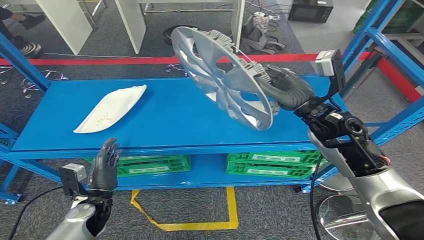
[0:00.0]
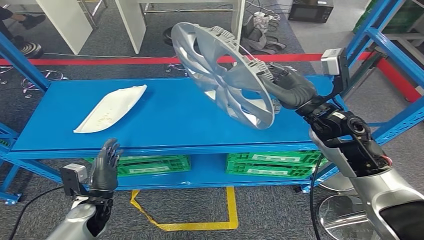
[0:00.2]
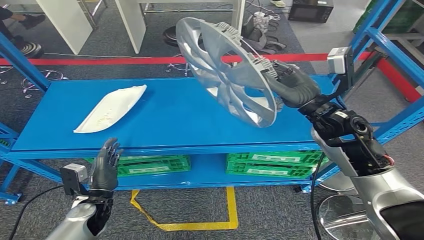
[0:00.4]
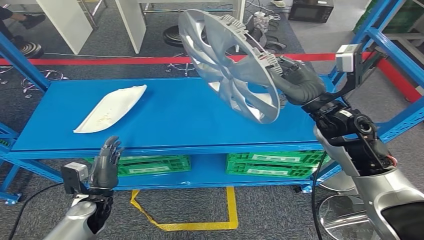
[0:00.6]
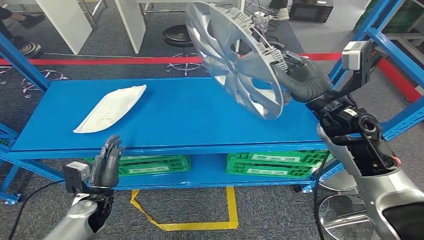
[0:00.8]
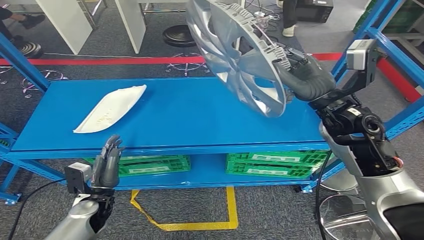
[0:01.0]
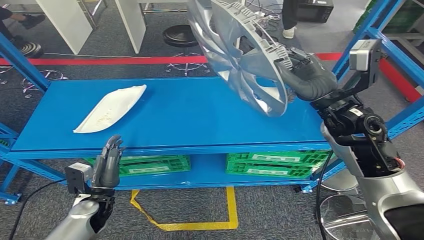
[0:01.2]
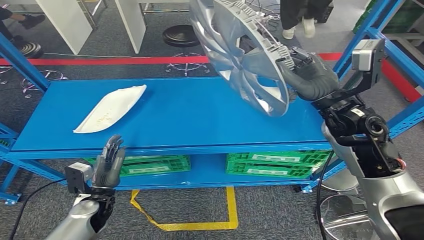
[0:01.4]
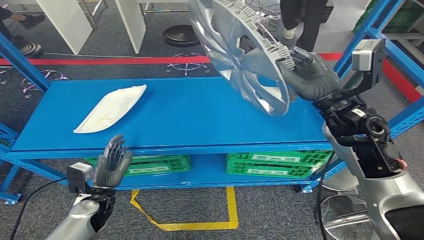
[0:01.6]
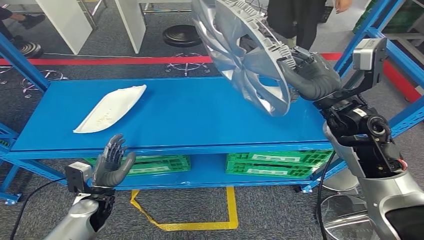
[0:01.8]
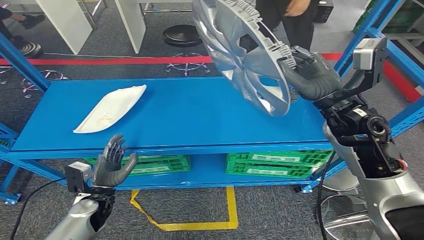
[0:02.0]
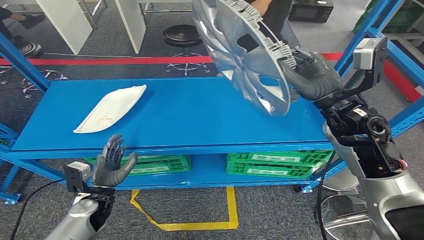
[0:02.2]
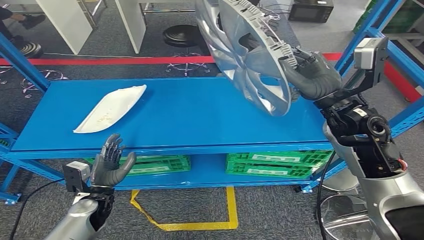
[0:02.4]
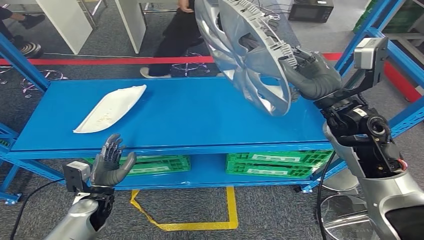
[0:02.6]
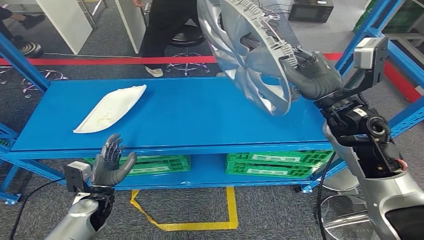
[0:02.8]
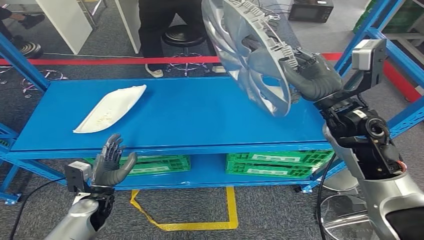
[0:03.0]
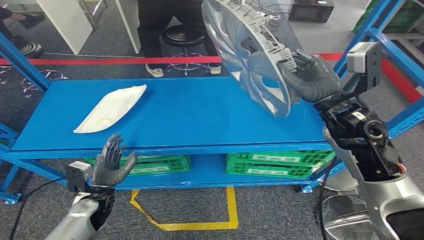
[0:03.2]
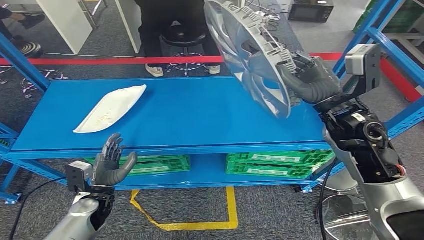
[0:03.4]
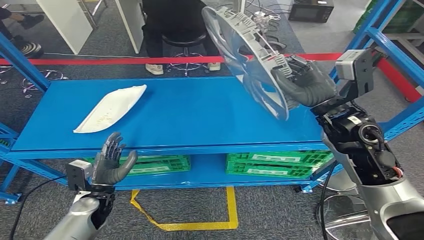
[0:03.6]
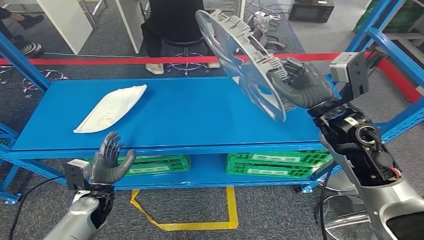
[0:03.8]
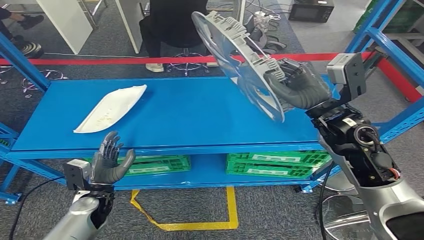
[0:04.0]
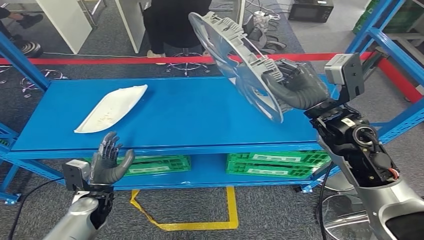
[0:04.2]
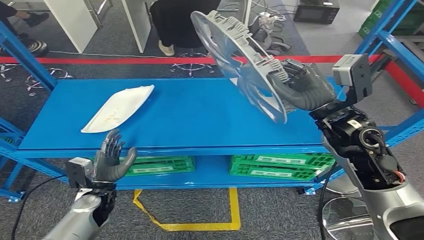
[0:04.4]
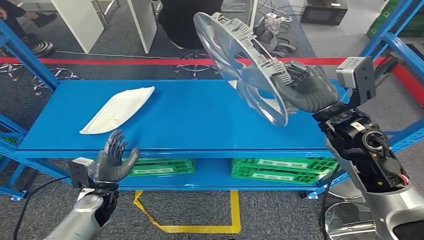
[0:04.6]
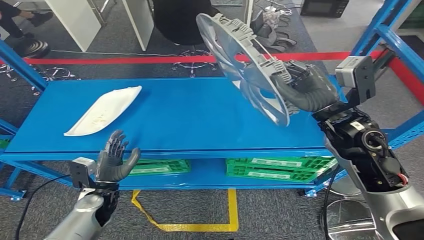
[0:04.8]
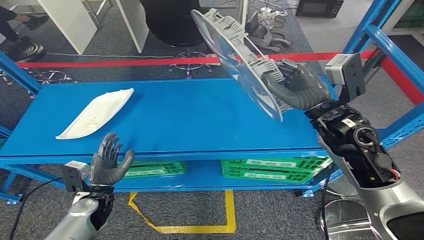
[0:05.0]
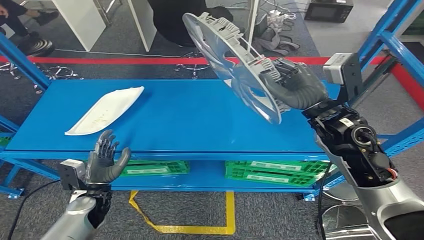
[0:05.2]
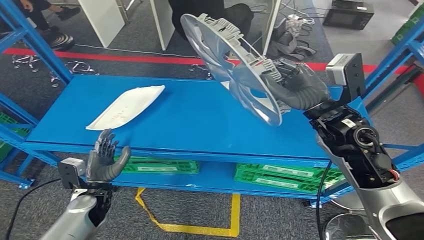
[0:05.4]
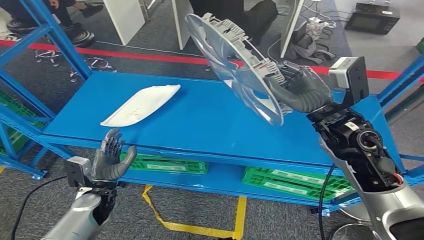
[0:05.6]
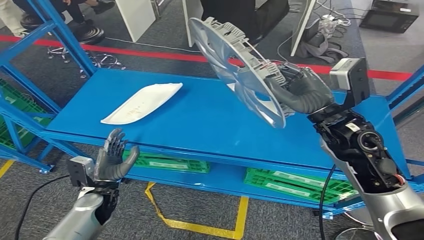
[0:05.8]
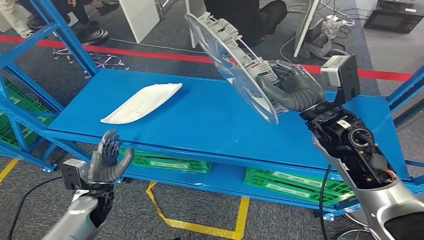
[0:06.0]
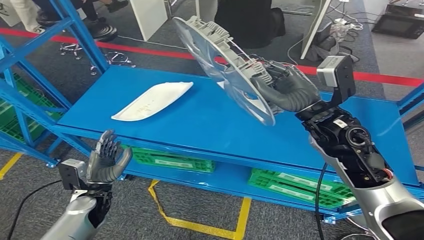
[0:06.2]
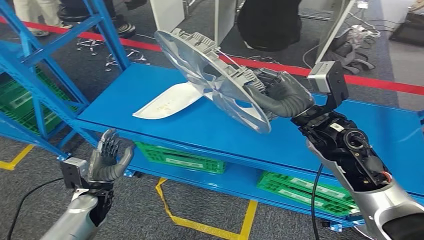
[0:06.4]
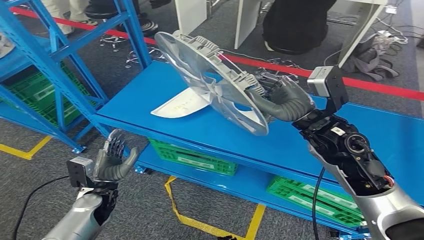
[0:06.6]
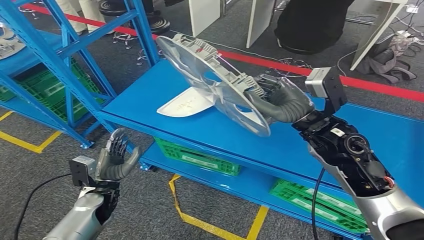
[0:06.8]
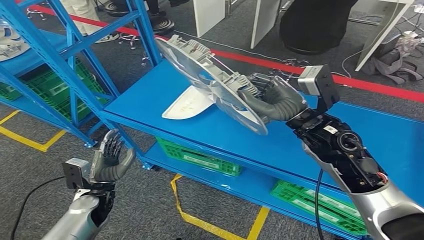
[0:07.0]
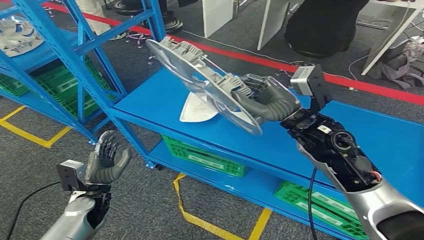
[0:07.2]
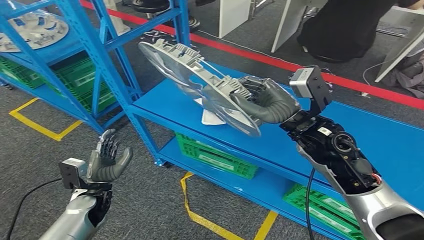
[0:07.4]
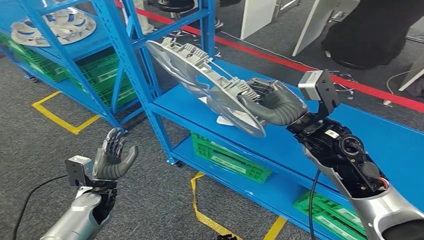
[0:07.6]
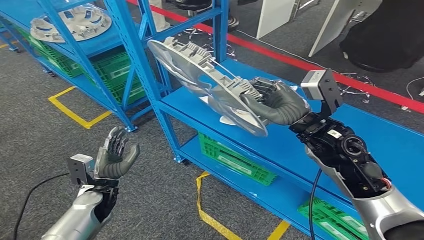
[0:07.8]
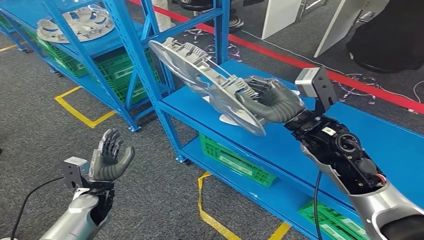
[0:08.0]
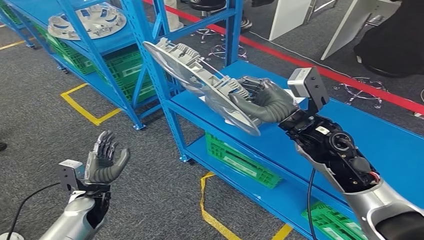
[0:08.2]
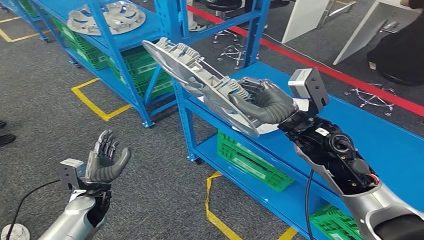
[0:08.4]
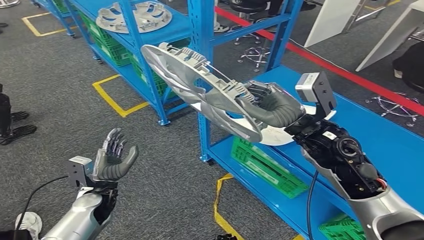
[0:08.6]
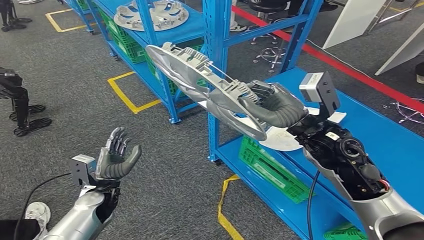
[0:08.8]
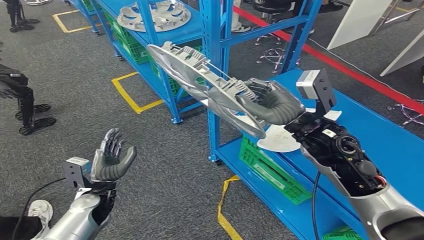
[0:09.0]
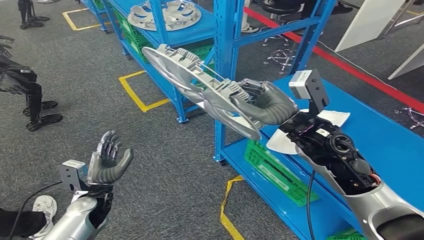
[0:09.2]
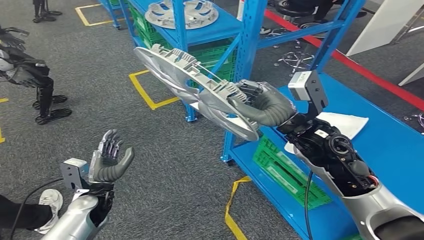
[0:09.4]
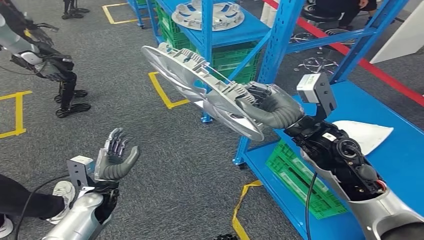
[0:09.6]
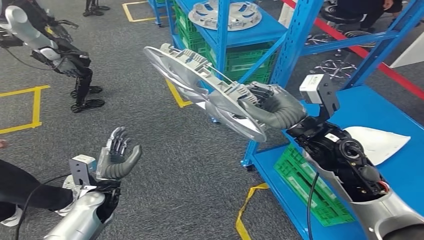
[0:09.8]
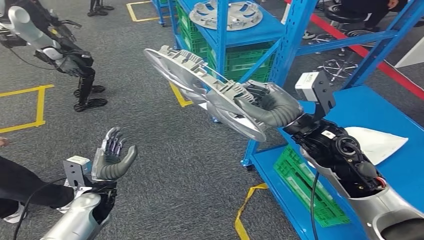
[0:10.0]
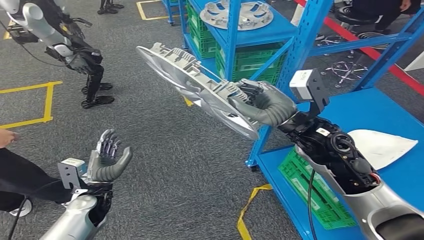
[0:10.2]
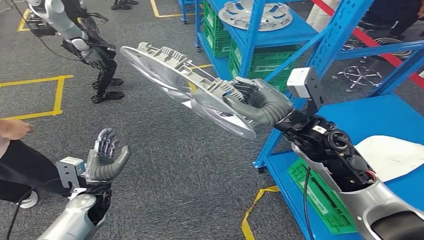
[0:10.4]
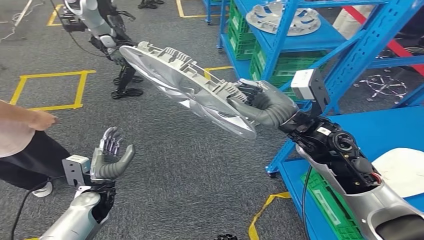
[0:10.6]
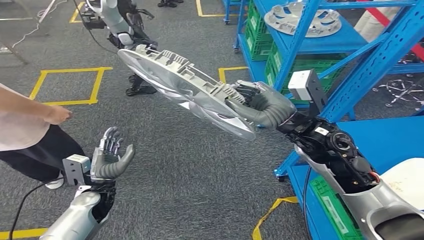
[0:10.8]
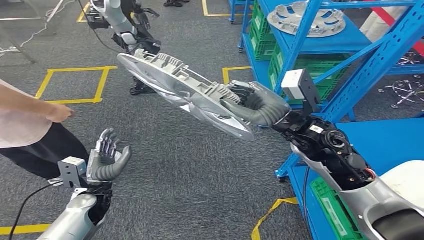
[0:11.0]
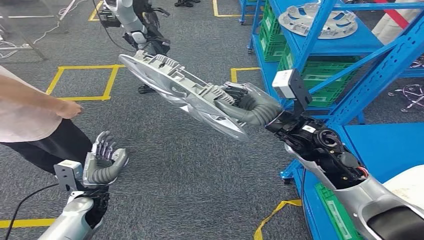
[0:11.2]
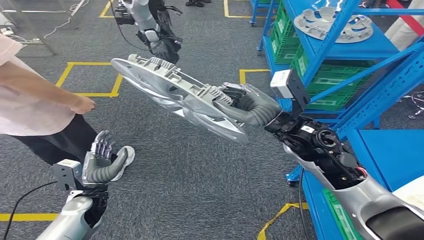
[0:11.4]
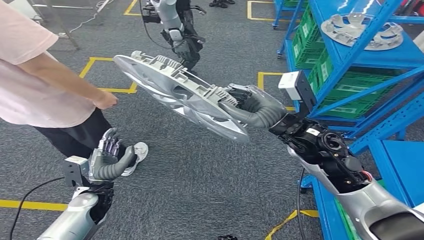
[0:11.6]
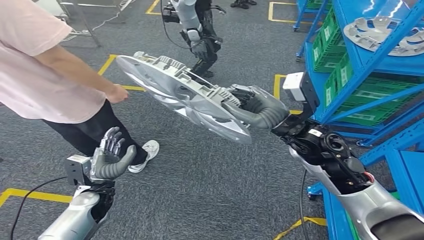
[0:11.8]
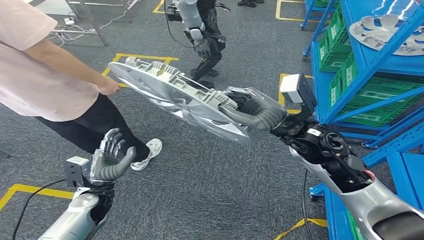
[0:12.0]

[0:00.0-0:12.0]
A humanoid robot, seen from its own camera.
0:00.0 to 0:01.6: The hands stay close to where they were, moving slightly.
0:01.6 to 0:03.0: Both hands stay put.

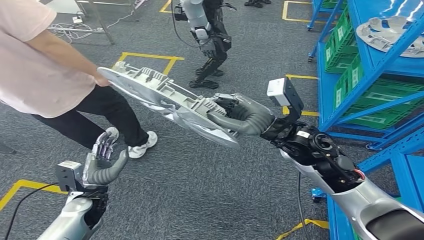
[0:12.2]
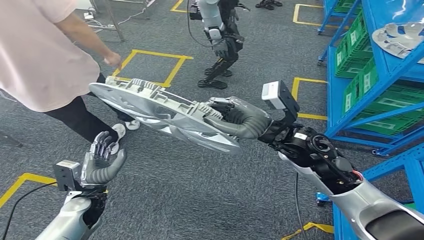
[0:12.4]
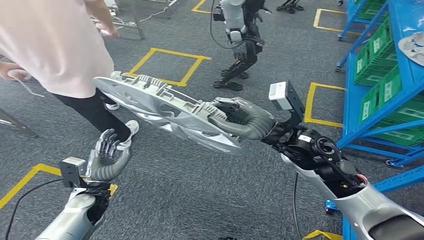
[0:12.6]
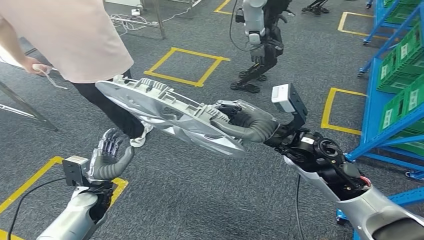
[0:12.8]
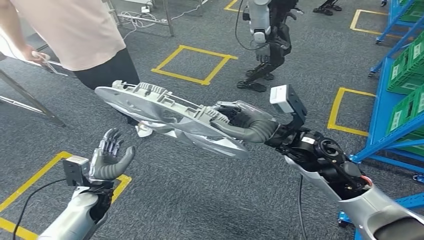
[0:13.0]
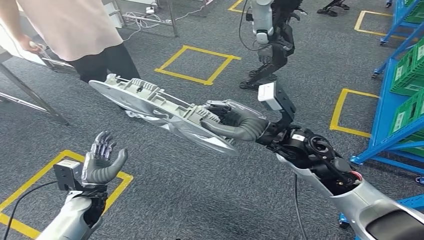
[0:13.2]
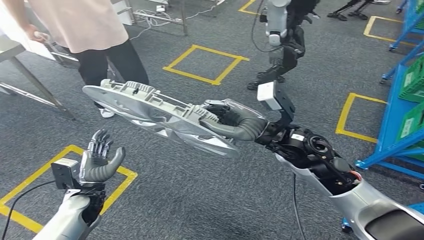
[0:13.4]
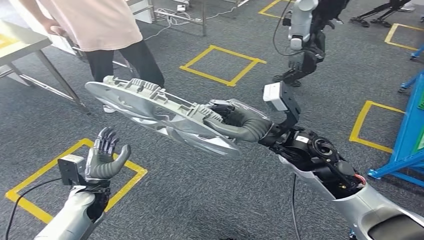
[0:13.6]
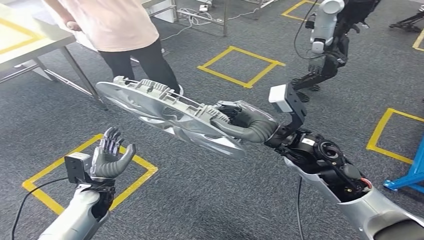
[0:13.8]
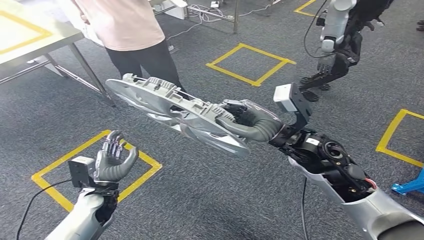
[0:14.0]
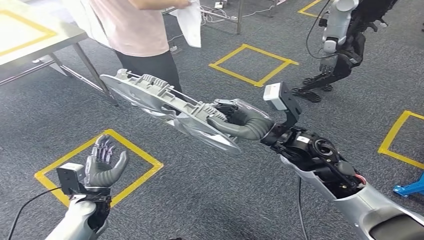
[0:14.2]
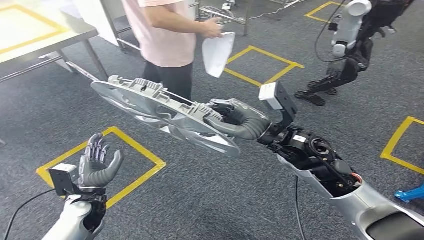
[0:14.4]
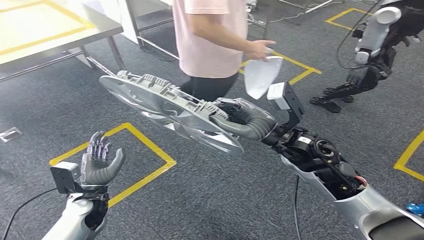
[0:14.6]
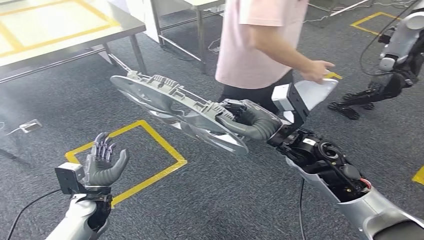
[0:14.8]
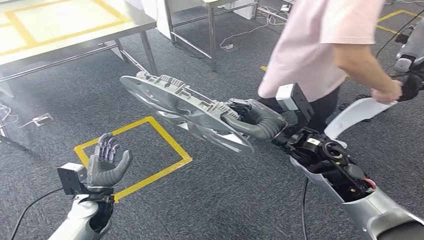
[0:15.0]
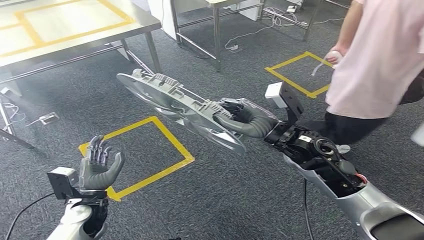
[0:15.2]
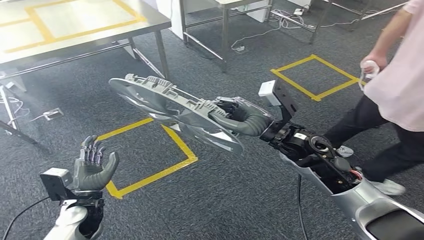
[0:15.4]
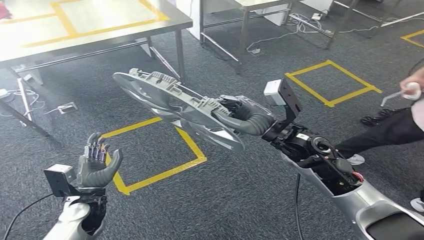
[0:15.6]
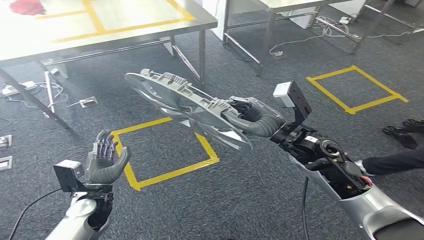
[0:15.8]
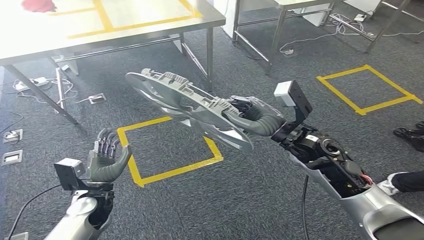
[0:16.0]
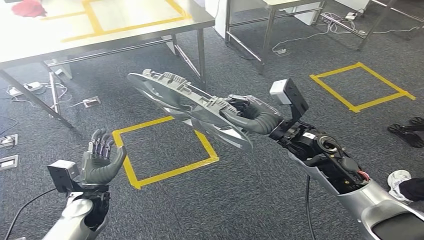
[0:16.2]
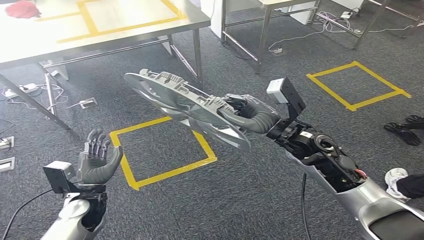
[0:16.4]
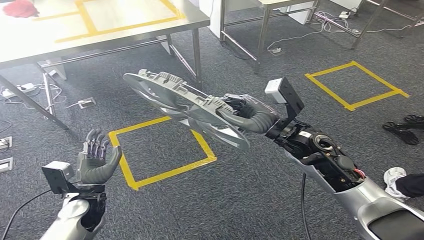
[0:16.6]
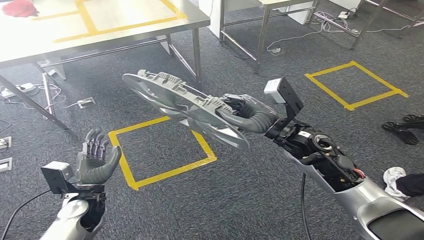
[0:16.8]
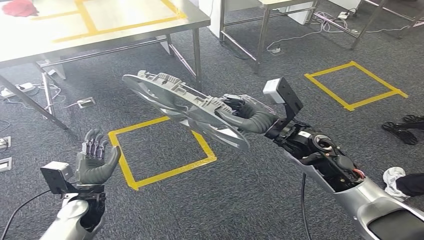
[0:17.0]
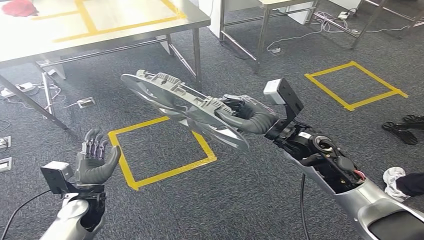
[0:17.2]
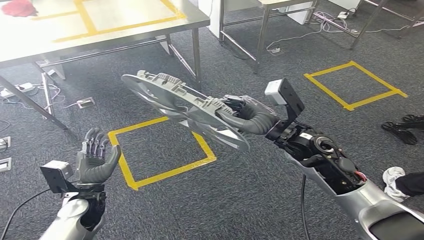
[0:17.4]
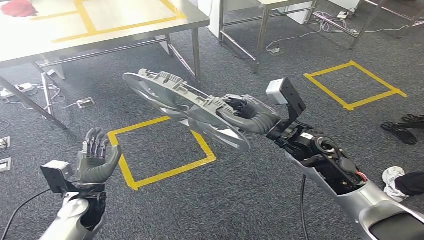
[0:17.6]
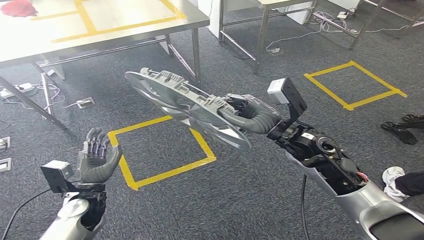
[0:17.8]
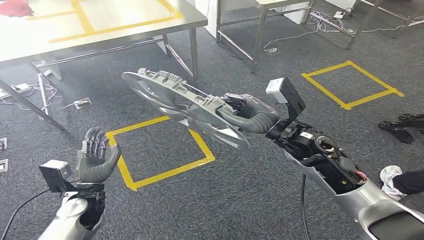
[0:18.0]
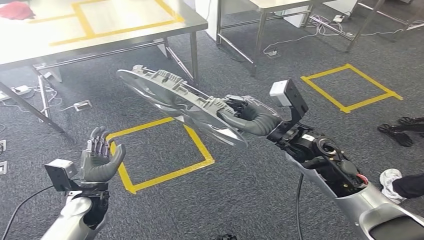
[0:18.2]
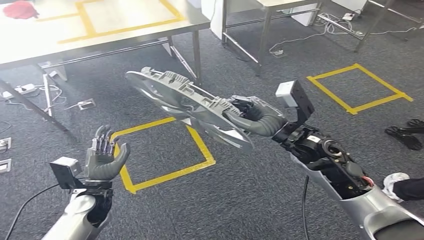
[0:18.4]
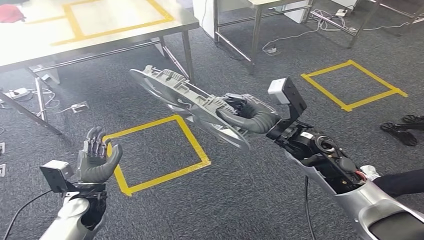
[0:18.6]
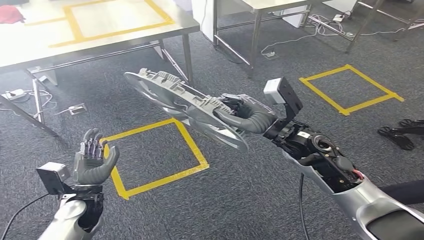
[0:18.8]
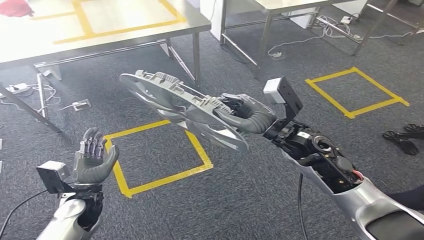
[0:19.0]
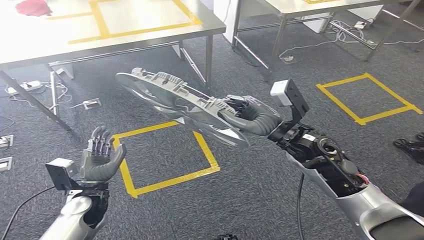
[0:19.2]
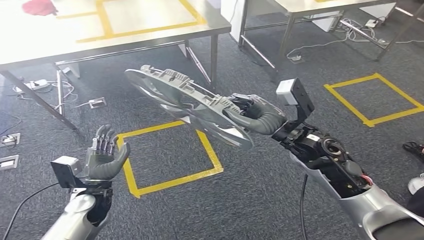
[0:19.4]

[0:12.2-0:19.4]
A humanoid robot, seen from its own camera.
0:16.6 to 0:18.0: The two hands keep their place.
